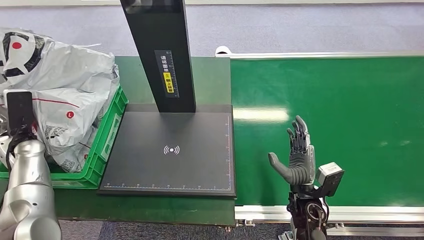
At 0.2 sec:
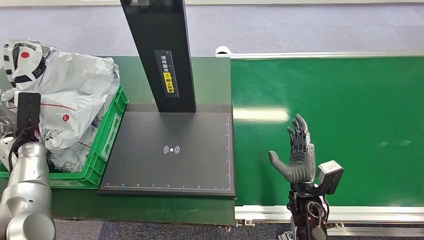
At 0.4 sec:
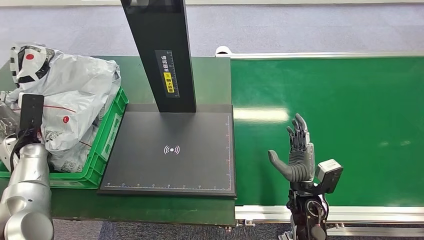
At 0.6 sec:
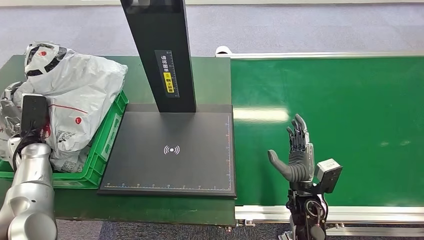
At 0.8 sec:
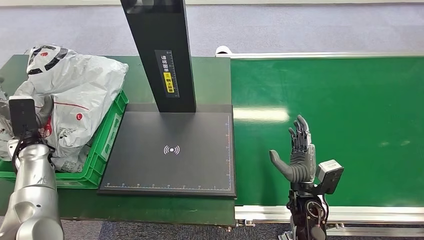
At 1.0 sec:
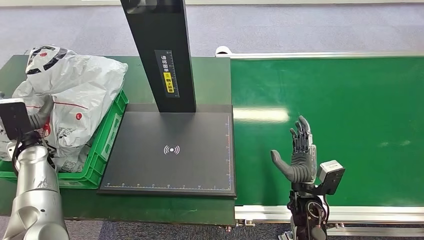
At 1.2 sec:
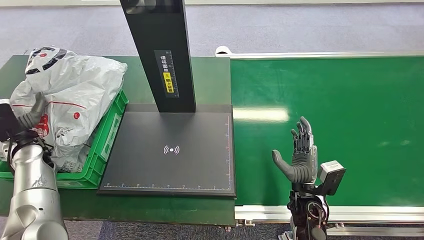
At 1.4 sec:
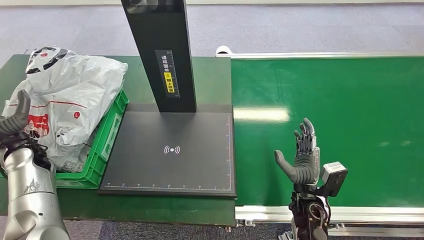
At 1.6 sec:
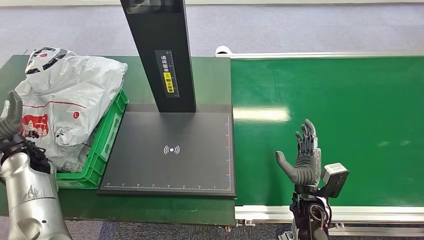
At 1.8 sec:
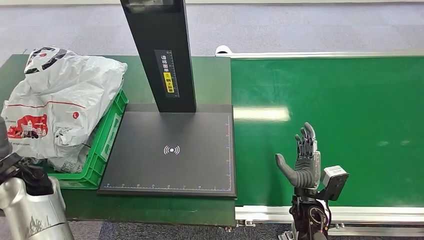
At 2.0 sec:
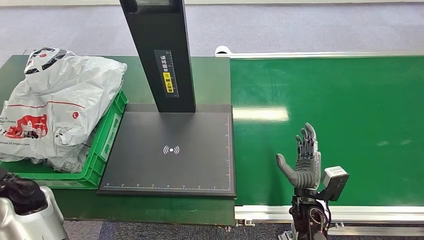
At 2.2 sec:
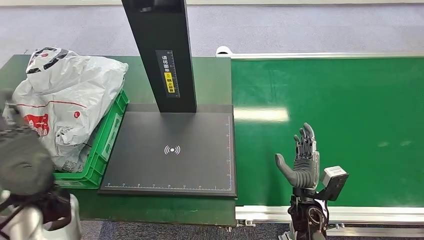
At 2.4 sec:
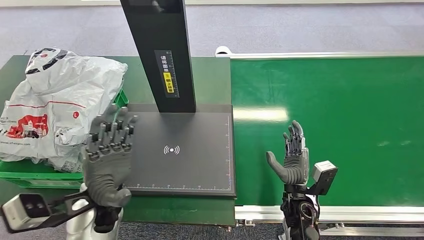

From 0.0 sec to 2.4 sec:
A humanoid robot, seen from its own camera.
Step, from 0.0 sec to 2.4 sec: Place the package into the parcel locker.
From 1.2 sec to 2.4 sec: The left hand heads to the right and backward, covering some 25 cm.
